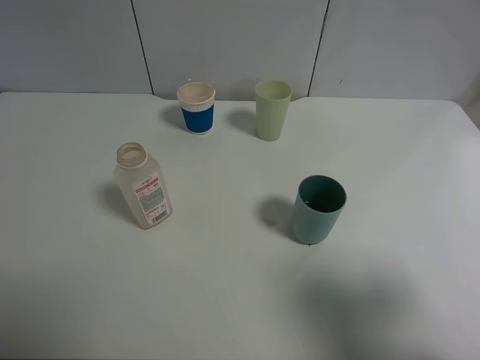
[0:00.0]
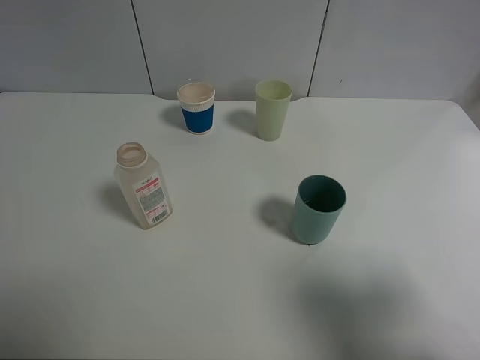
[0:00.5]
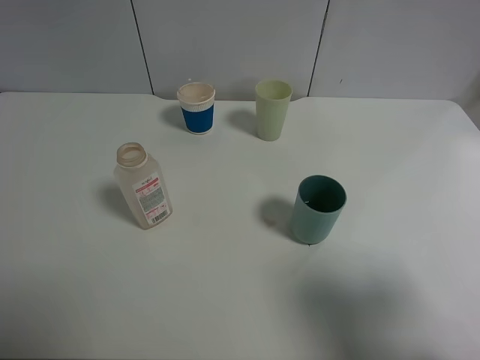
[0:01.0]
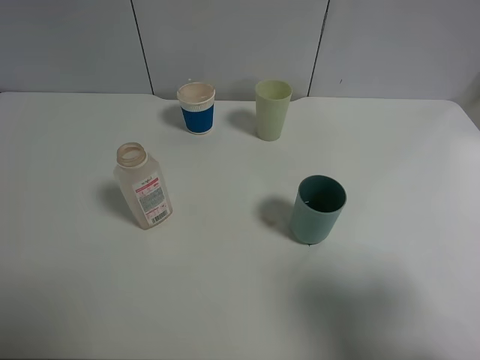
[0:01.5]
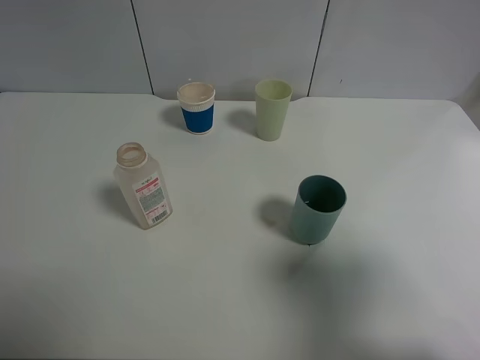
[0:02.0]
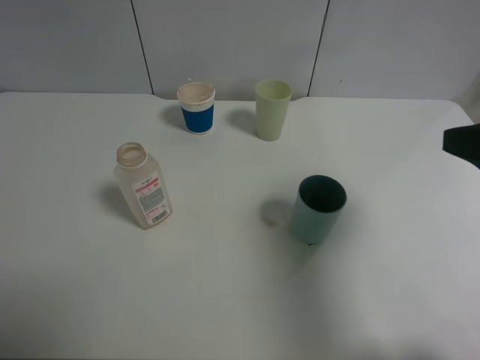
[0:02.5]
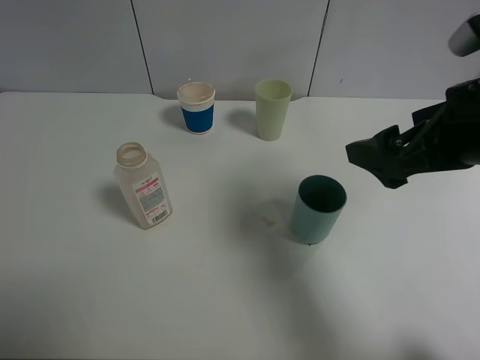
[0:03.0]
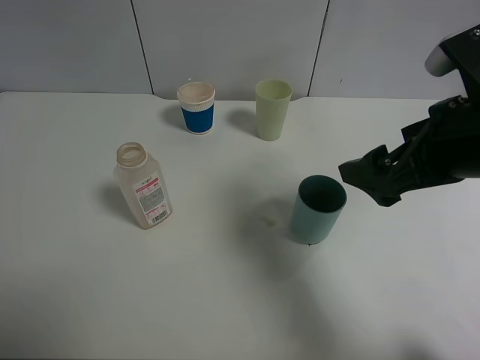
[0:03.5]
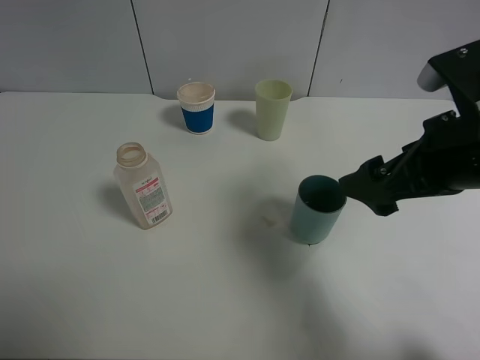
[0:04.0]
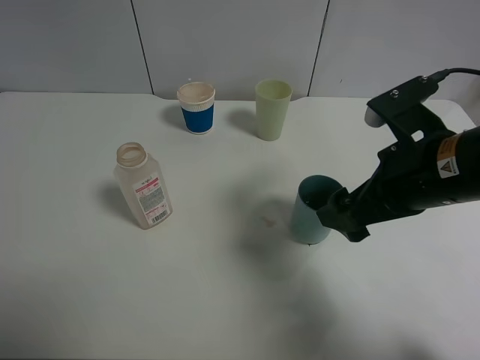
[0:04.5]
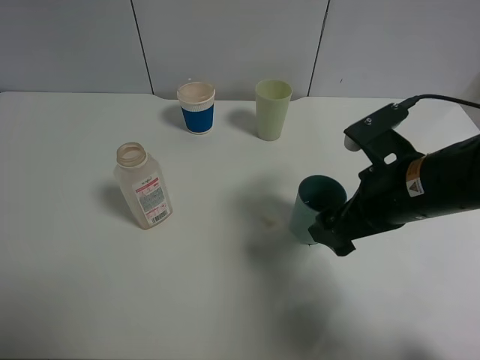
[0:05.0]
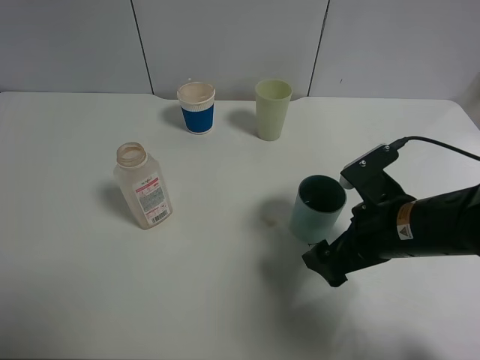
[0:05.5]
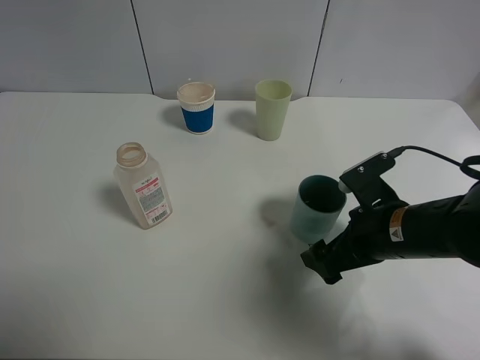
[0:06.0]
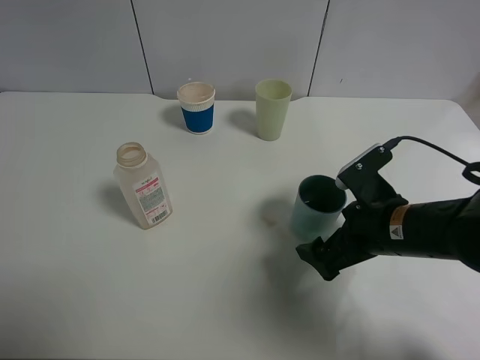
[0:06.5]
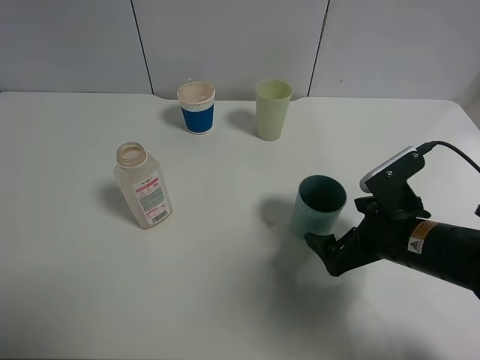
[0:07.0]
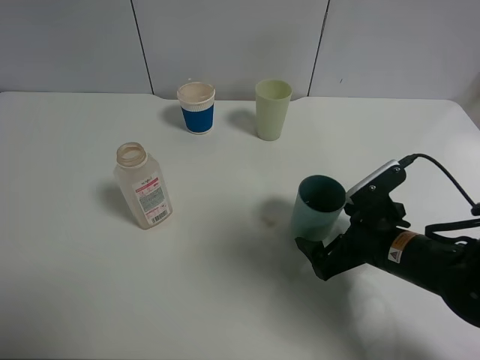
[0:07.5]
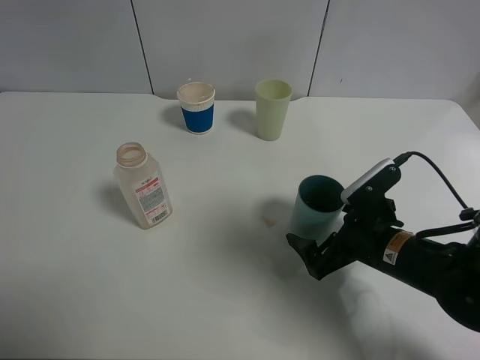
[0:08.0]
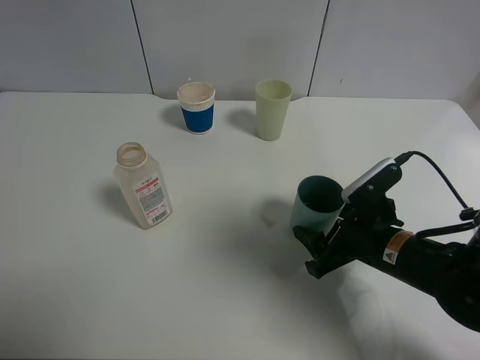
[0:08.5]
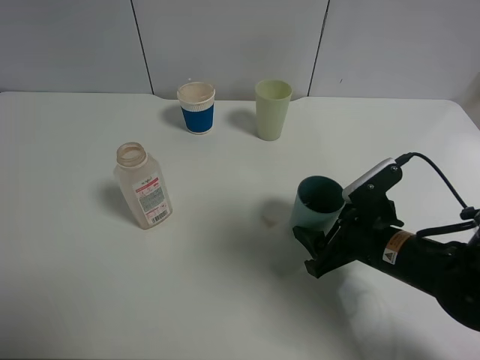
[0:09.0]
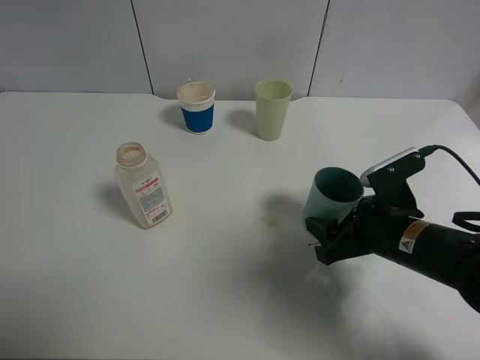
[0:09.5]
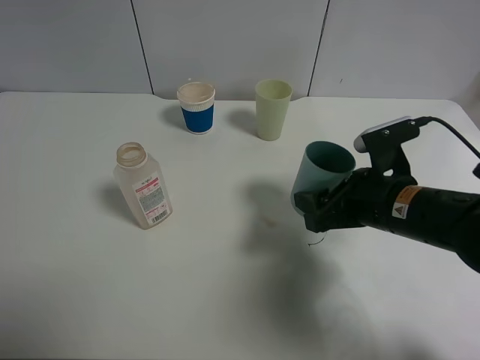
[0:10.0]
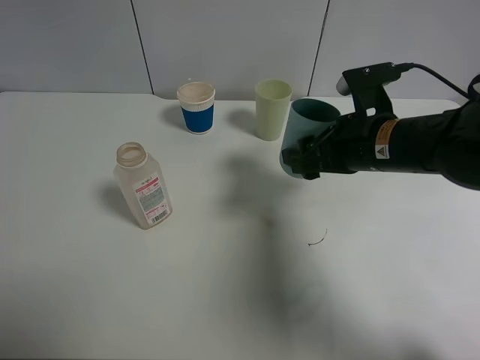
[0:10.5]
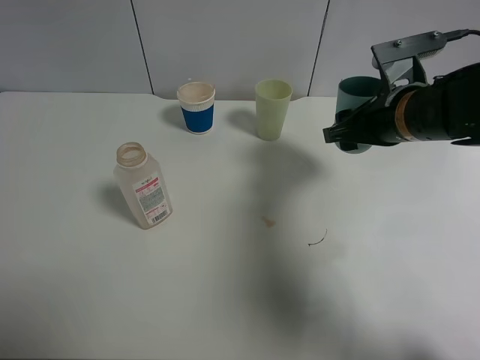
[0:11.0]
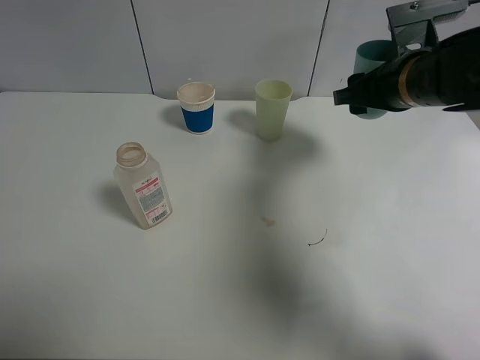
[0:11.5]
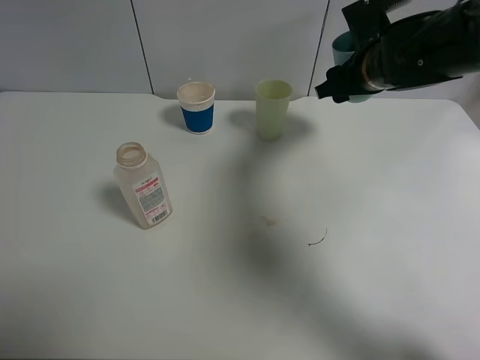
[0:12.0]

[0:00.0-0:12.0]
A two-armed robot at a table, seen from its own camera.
Task of the whole recording: use a clamp to hold the bottle of the drink, pour the beverage into a random cup, then clamp the cup containing the drink and pour the drink into another random cup.
Step, 0:00.0 to 0:09.5: Pick up the blue plastic cup bottle with right gripper.
0:00.0 to 0:02.0: There are only small adjustments of the grippers.
0:02.0 to 0:04.0: The right gripper moves forward and to the left, about 15 cm.
0:04.0 to 0:06.0: The right gripper moves downward, approximately 15 cm.
0:08.0 to 0:10.0: The right gripper shifts some 5 cm upward, and closes its fingers.
0:10.0 to 0:12.0: The right gripper moves forward and upward, roughly 20 cm.

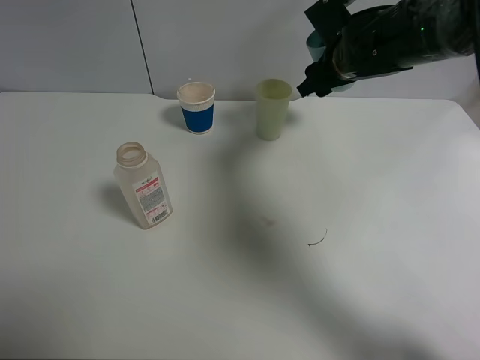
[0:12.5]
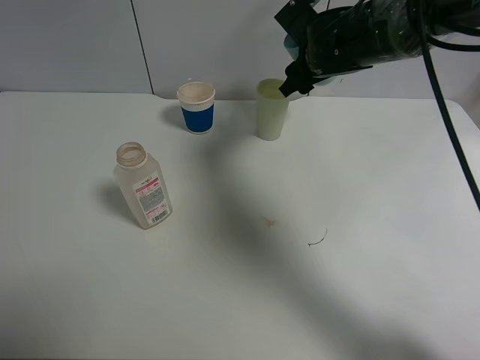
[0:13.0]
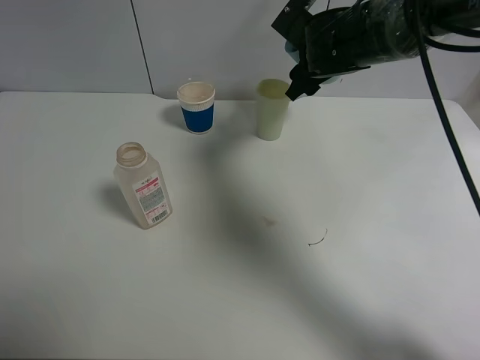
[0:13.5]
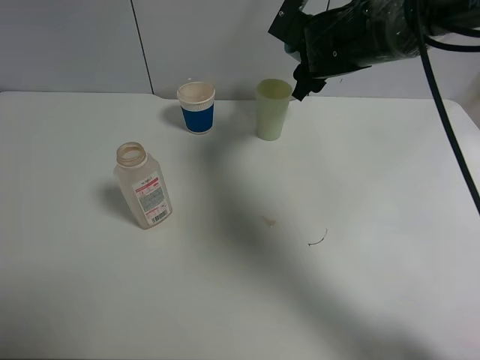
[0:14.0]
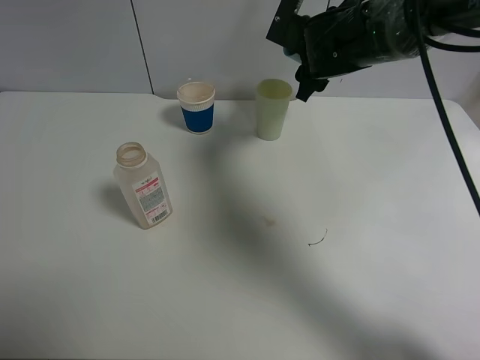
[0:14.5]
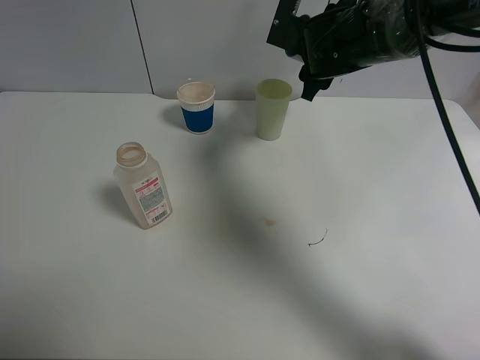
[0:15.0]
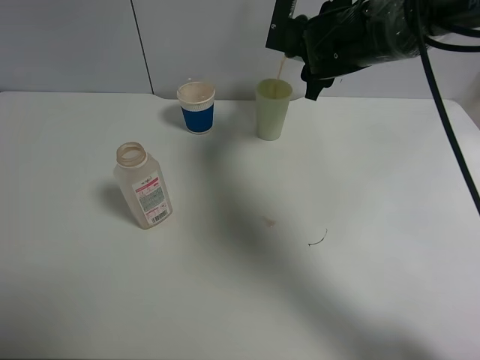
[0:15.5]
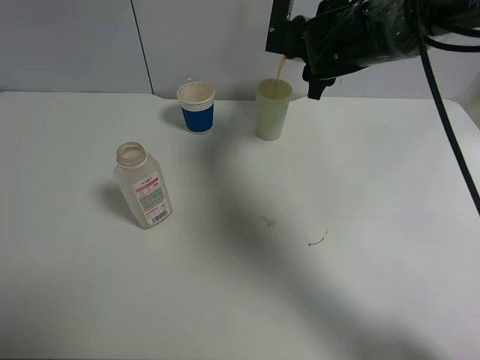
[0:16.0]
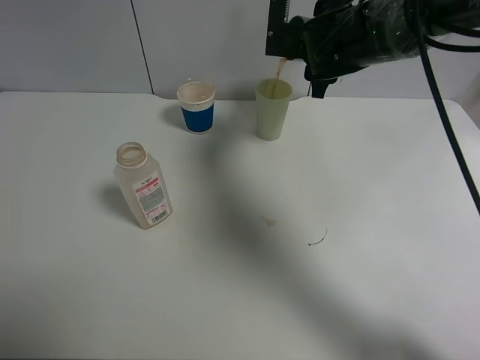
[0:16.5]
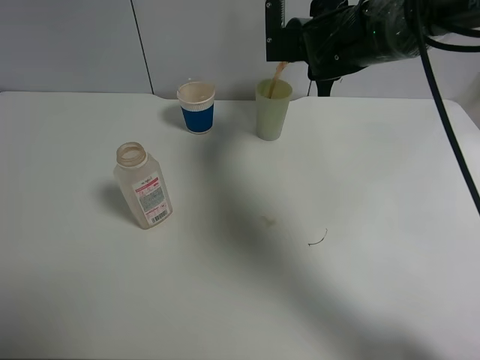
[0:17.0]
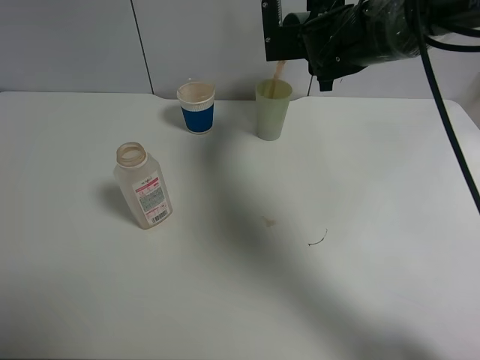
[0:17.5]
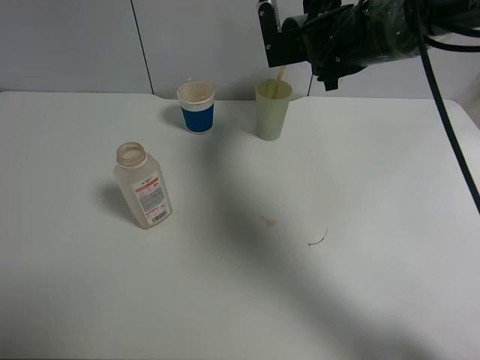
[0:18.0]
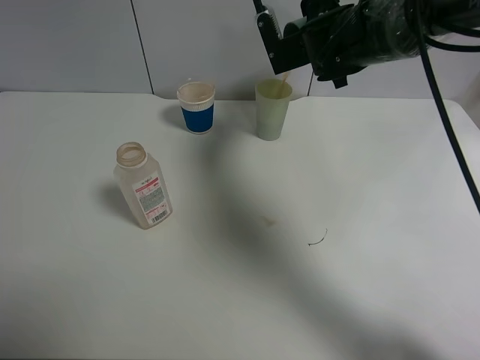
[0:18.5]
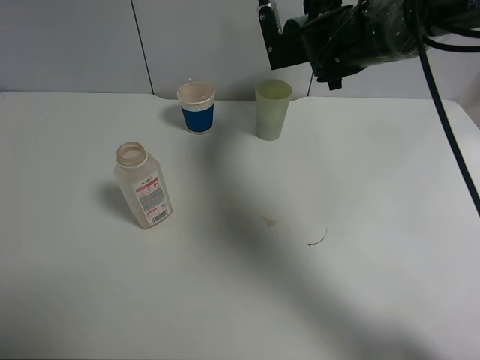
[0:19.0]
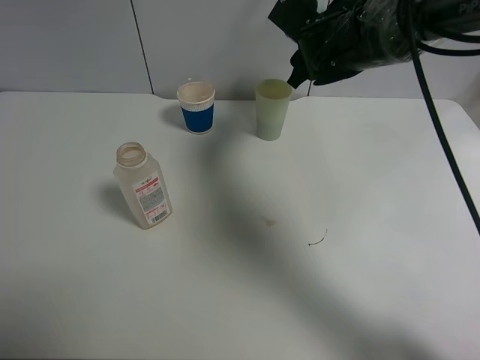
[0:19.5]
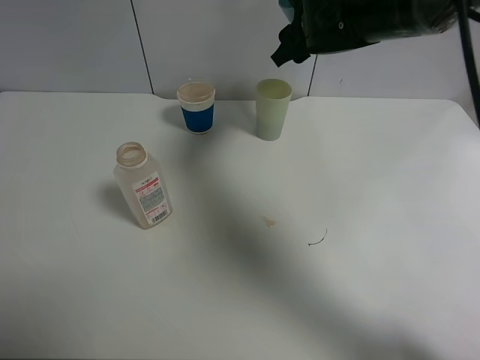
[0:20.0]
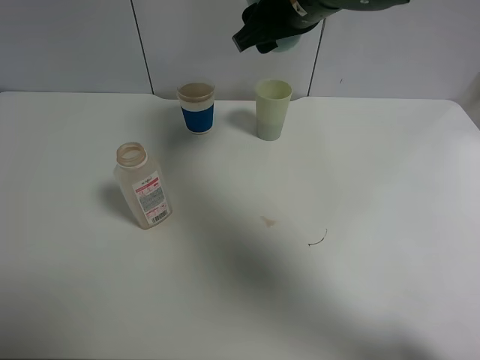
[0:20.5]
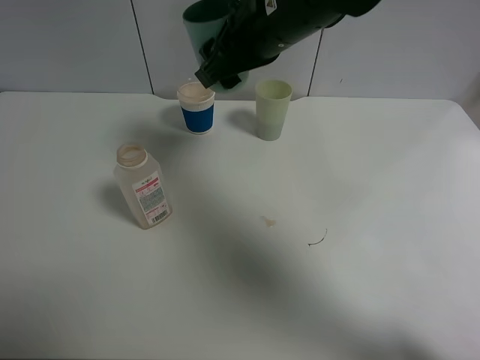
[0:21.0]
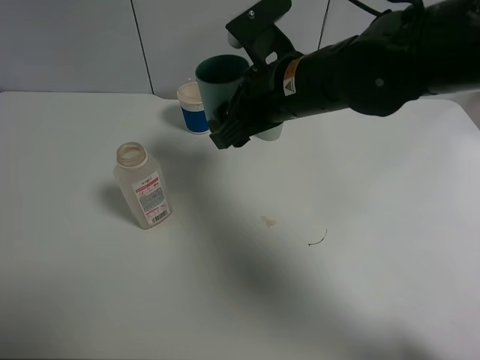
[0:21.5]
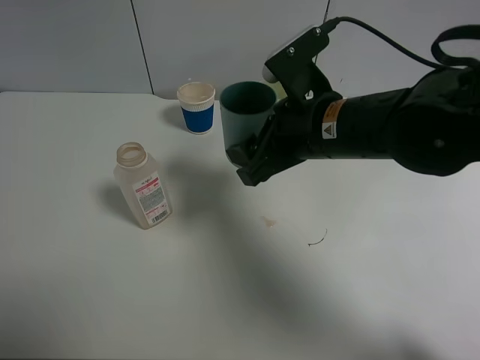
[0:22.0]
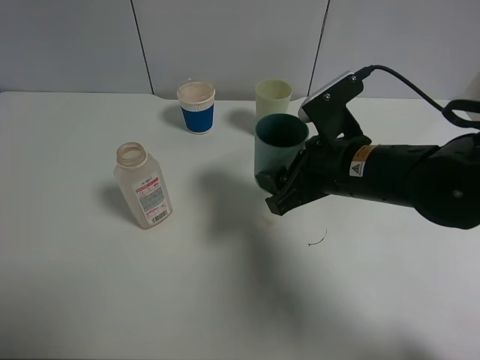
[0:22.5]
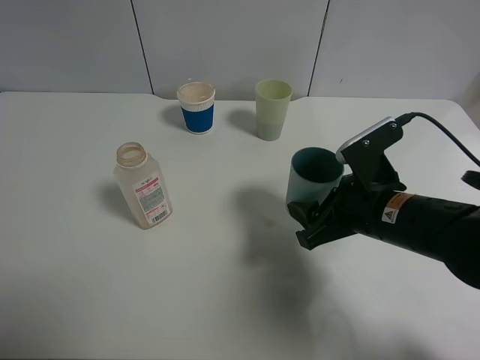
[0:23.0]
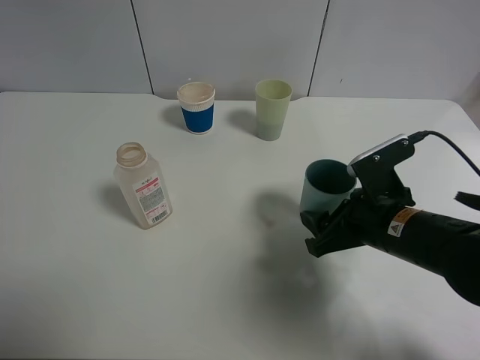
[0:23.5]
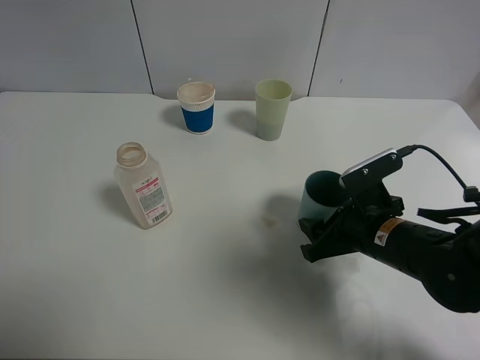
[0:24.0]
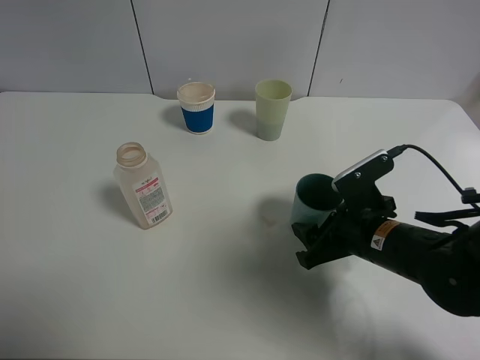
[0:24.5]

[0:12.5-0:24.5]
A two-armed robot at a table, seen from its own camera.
Task of the whole recording: use a clamp to hold the bottle of the drink, pour the beverage into a random cup, then clamp the cup containing the drink and pour the drink into another random cup.
Step, 0:12.5 to 0:18.5: Pour the drink into the green plastic cup with right gripper.
0:18.5 to 0:20.5: The right gripper moves backward, upward and to the left, approximately 15 cm.
0:20.5 to 0:22.5: The right gripper heads downward, backward and to the right, covering about 20 cm.
0:22.5 to 0:24.5: The right gripper goes approximately 10 cm downward.

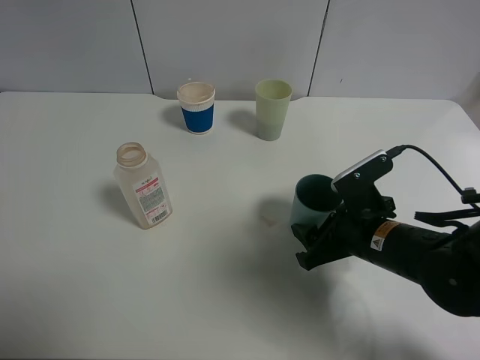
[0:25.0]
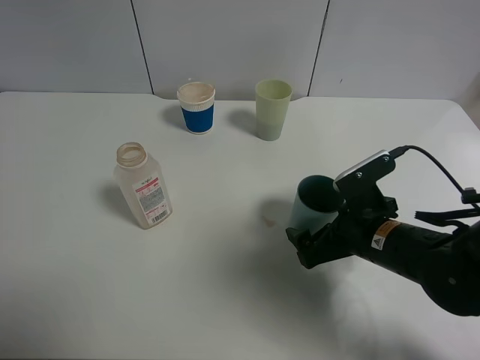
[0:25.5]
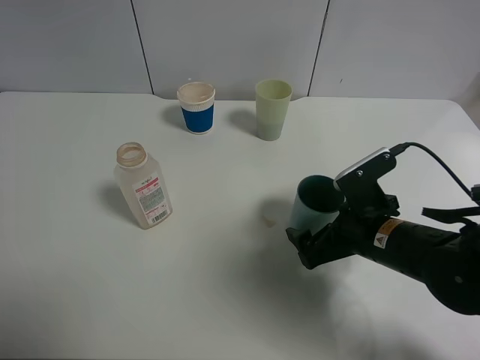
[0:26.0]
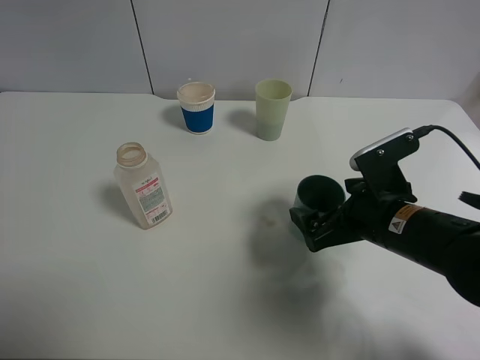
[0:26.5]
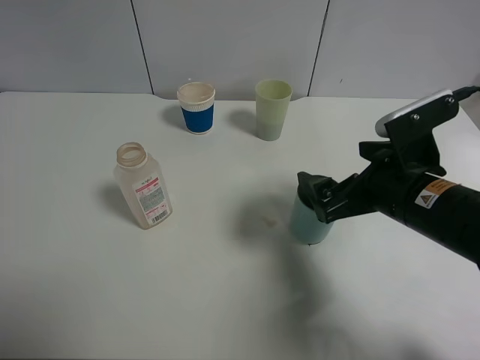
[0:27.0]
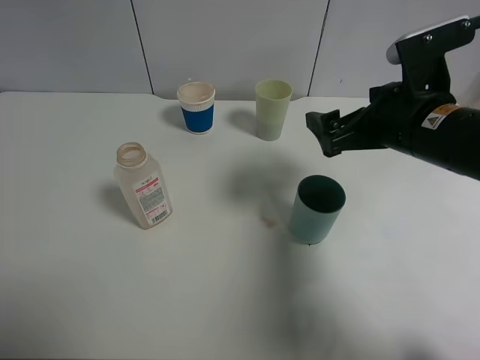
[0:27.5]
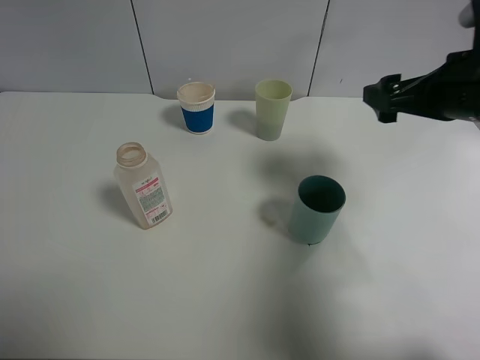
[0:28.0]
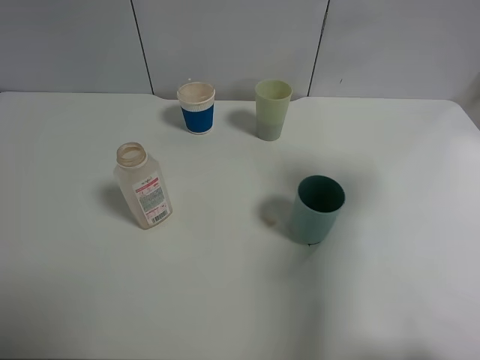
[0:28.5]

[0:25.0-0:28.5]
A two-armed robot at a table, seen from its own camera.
Task of the whole recording: use a clamp to hold the bottle of the drink, pour the beverage into a random cup, then clamp the cup containing the drink and pour the drink into another random cup.
0:25.0 to 0:27.0: The right gripper moves upward, about 10 cm, and opens.
0:27.0 to 0:28.5: The right gripper travels upward and to the right by roughly 20 cm.
